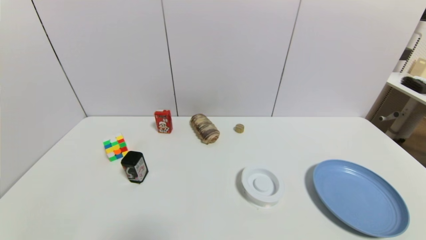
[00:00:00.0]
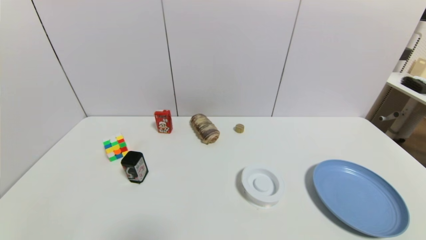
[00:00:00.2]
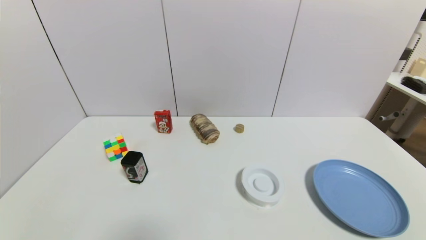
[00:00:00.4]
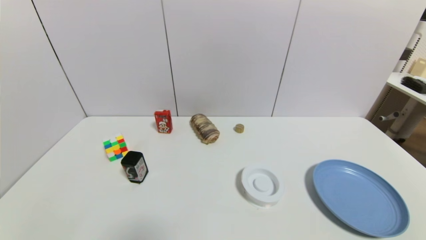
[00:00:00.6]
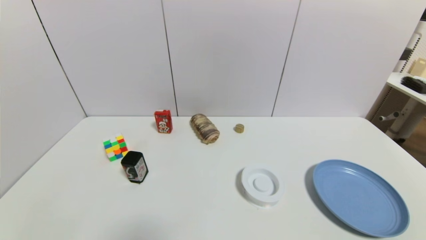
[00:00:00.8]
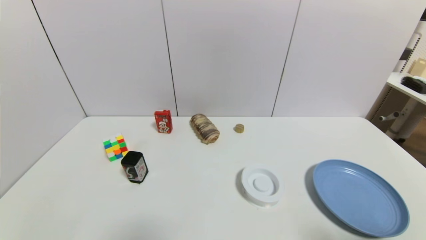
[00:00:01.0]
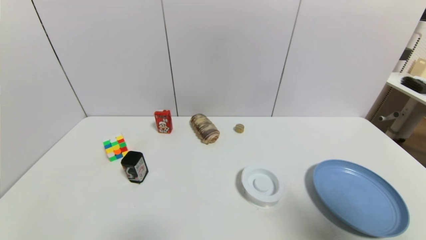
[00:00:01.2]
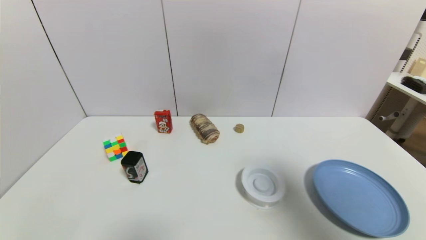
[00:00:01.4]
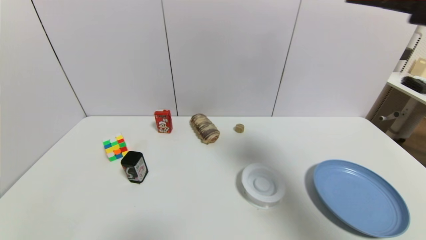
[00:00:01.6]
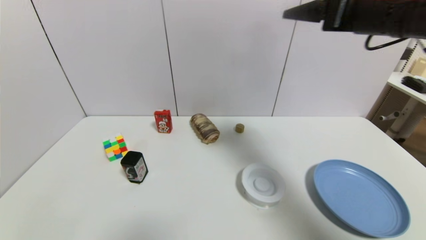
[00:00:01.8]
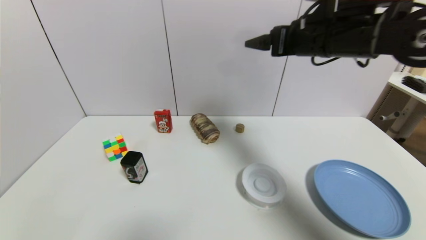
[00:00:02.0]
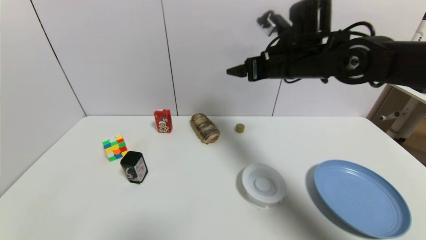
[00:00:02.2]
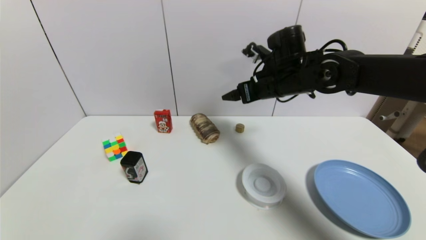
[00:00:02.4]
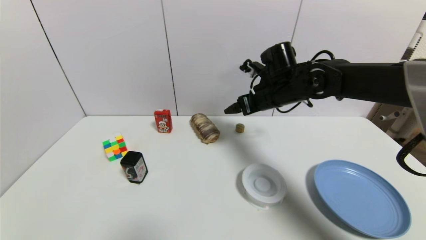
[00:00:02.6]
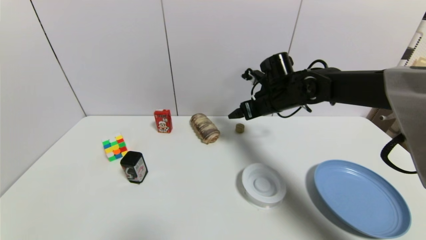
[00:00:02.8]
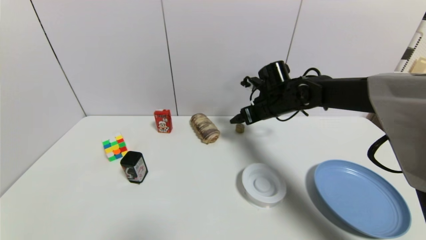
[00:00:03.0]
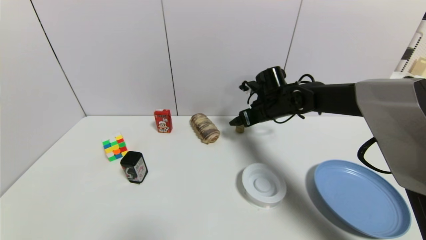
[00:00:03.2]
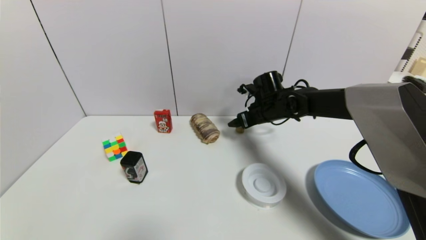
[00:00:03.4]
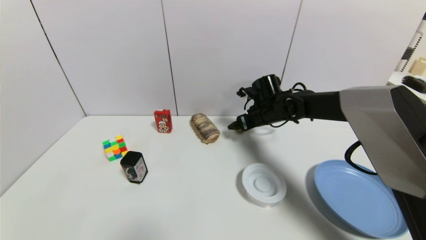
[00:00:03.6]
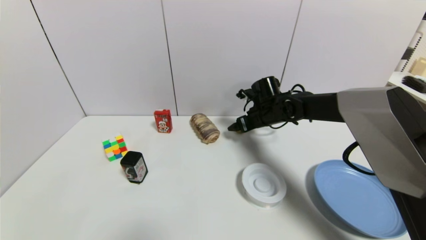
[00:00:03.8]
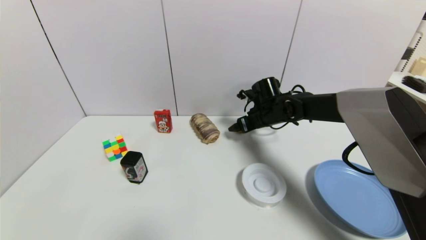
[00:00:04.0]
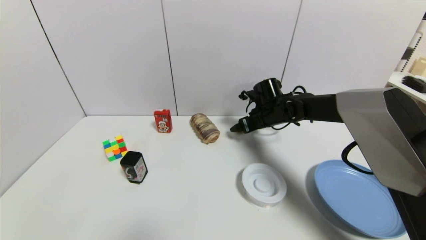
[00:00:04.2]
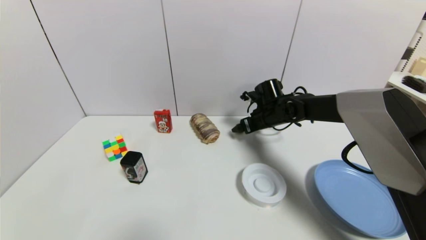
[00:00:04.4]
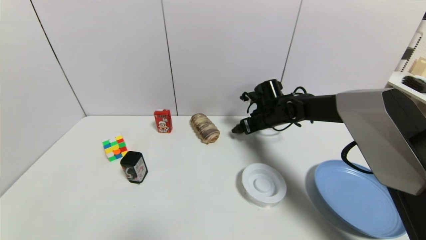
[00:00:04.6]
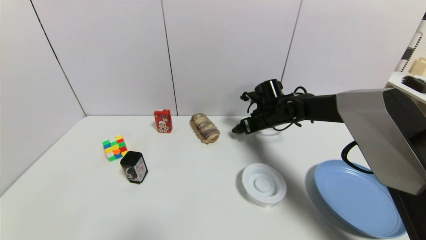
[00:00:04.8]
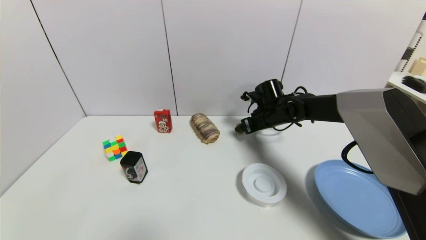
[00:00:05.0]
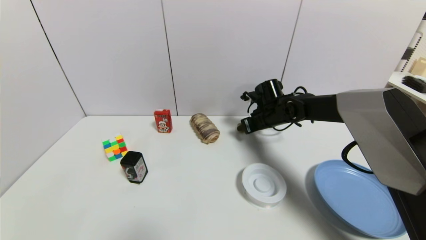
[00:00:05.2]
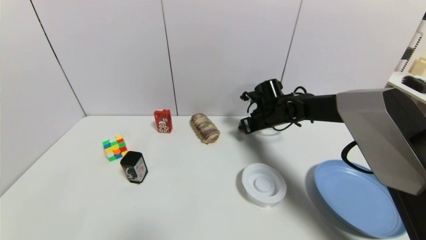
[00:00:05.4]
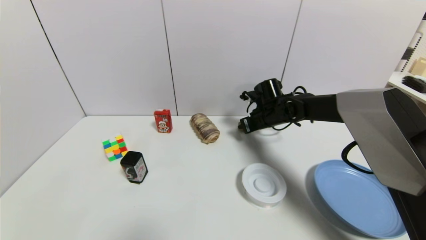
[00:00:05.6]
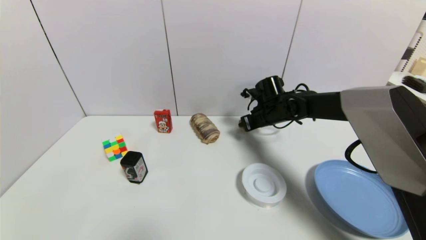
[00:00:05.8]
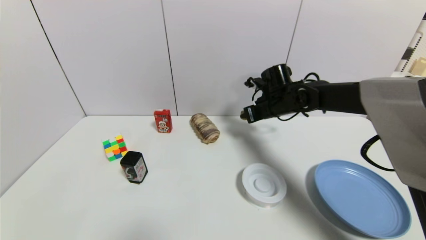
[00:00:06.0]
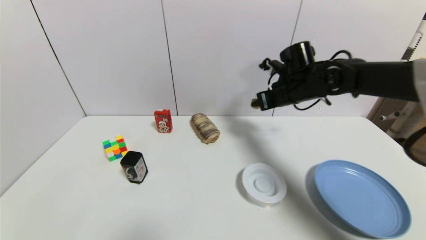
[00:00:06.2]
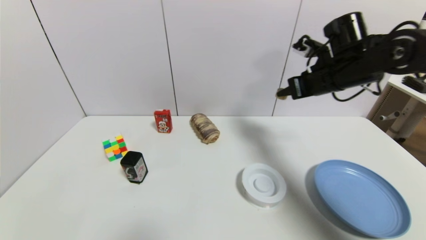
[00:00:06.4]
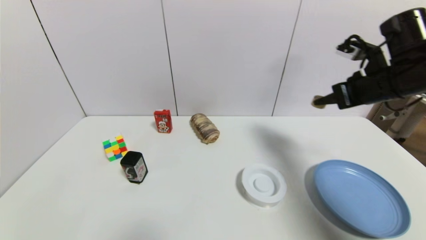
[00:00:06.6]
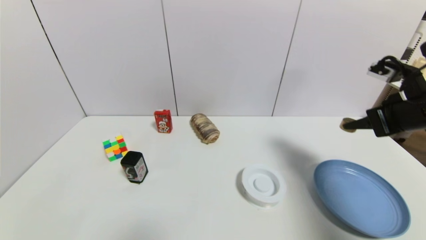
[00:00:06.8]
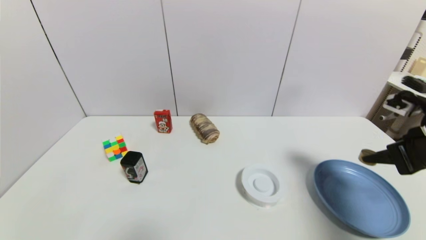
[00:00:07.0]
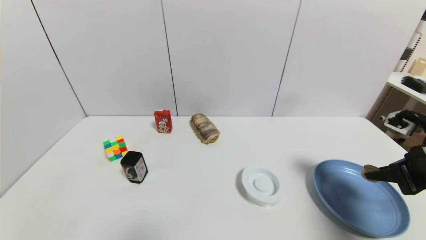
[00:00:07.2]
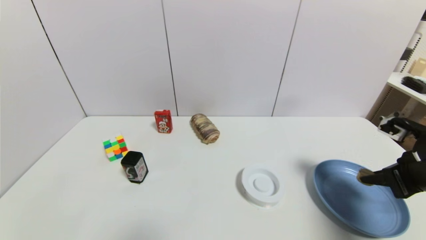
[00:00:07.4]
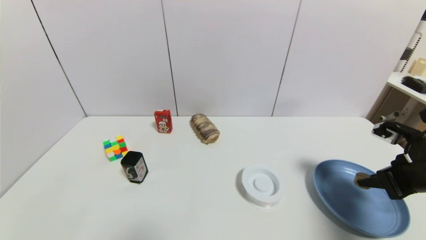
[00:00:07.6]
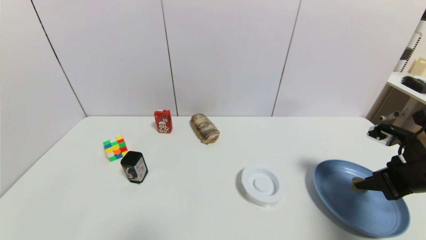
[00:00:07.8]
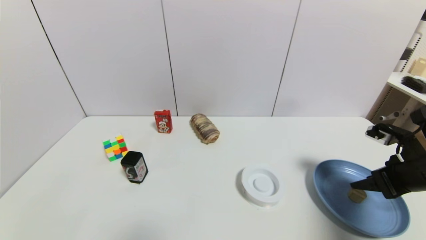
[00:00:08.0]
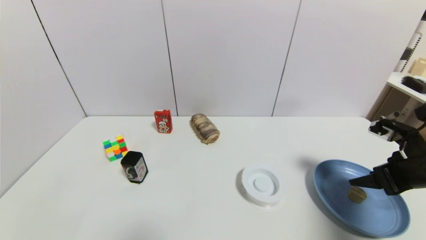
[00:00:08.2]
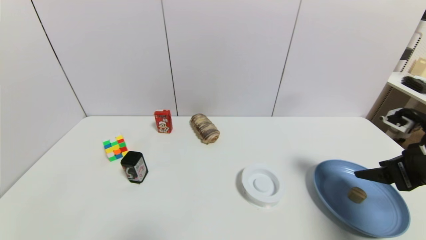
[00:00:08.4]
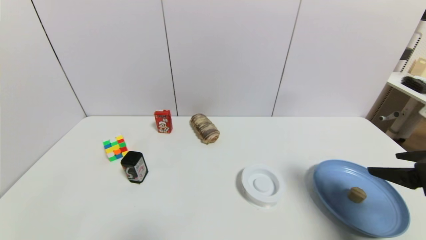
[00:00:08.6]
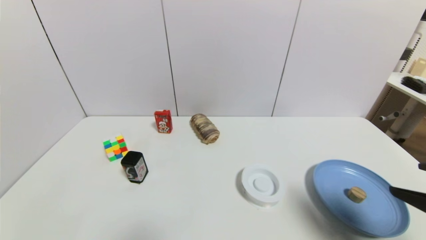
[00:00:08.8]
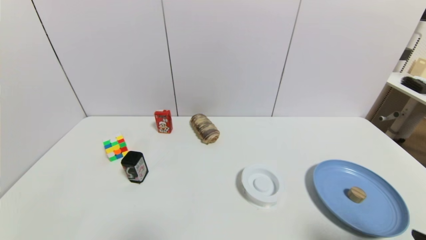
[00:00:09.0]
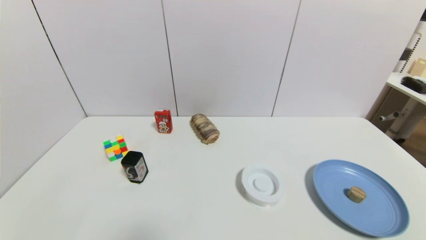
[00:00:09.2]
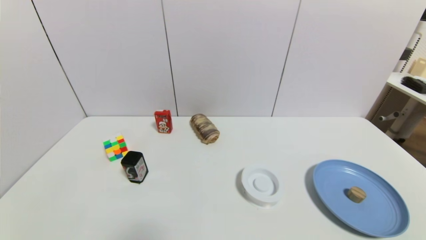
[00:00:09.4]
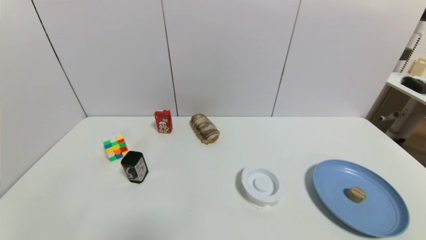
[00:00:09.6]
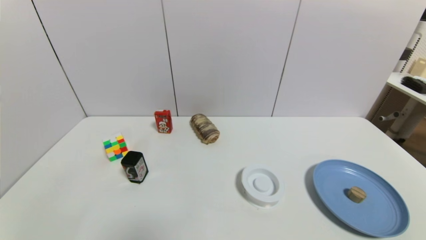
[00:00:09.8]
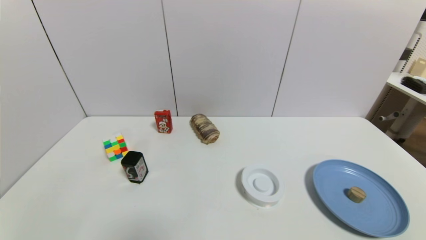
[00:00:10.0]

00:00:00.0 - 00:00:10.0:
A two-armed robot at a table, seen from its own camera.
Task of the whole recording: use a gripper to pick the target object and place on the blue plate.
Step, 00:00:00.0 - 00:00:05.4: Grasp the round wooden block with the right gripper.
Step, 00:00:05.6 - 00:00:08.6: Place the round wooden block on the blue plate with the right gripper.
00:00:00.0 - 00:00:01.4: The right gripper is displaced upward and forward by approximately 35 cm.
00:00:01.4 - 00:00:02.8: The right gripper goes some 35 cm forward, downward and to the left.
00:00:02.8 - 00:00:04.2: The right gripper moves downward, approximately 5 cm.
00:00:04.2 - 00:00:05.8: The right gripper closes.
00:00:05.8 - 00:00:07.2: The right gripper travels backward and to the right by approximately 30 cm.
00:00:07.2 - 00:00:08.6: The right gripper shifts some 5 cm backward, and opens.
00:00:08.6 - 00:00:10.0: The right gripper shifts some 25 cm backward and downward.
